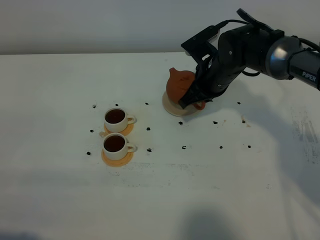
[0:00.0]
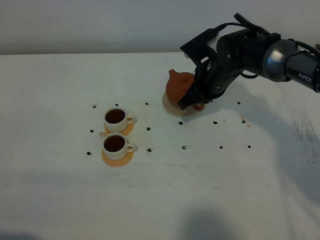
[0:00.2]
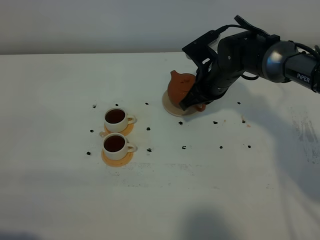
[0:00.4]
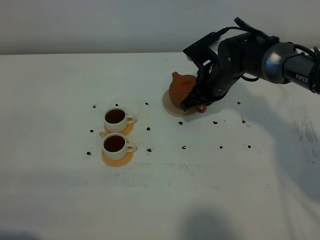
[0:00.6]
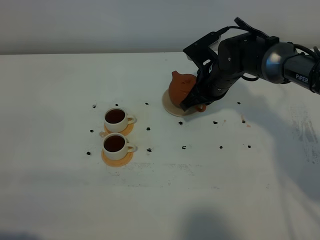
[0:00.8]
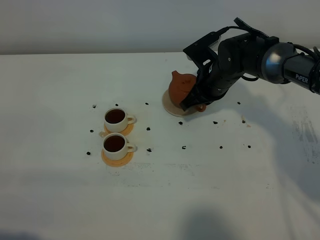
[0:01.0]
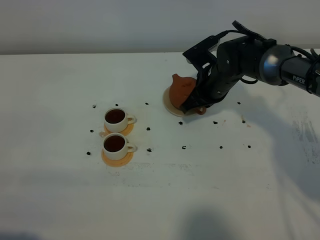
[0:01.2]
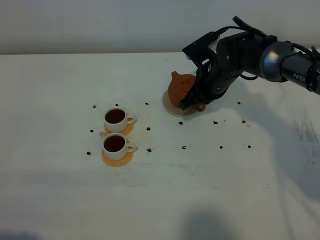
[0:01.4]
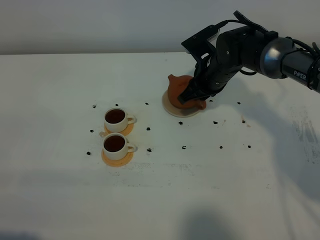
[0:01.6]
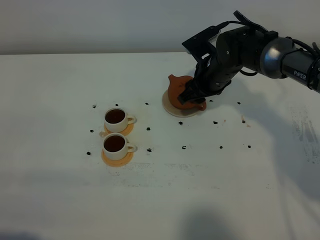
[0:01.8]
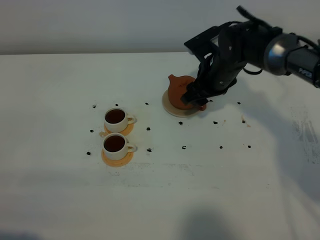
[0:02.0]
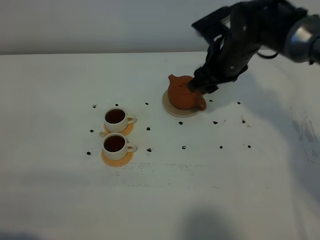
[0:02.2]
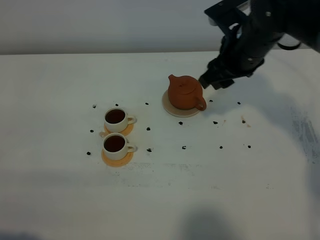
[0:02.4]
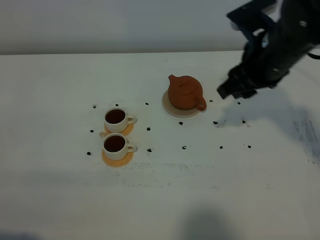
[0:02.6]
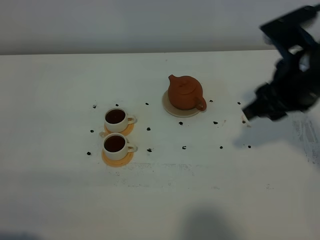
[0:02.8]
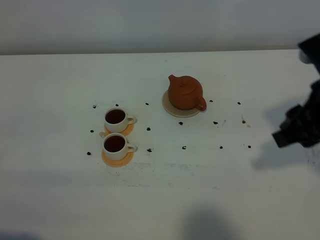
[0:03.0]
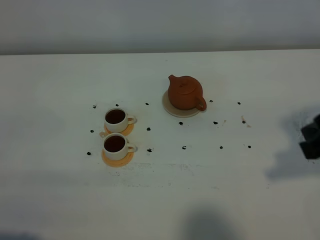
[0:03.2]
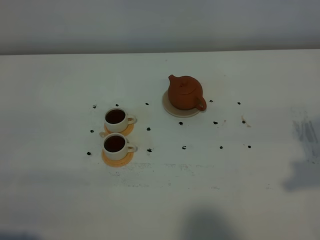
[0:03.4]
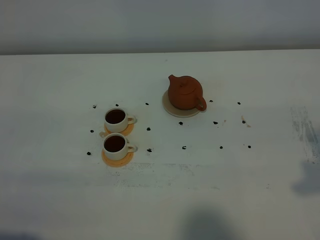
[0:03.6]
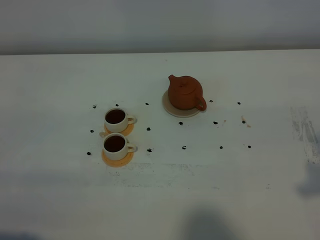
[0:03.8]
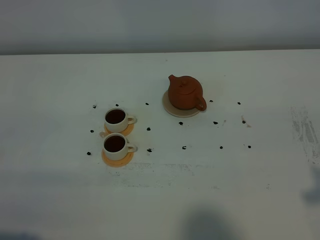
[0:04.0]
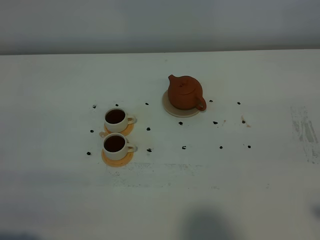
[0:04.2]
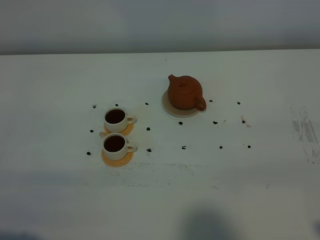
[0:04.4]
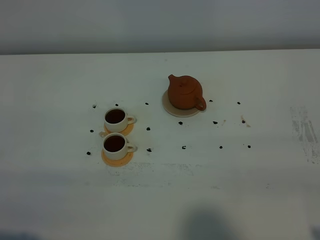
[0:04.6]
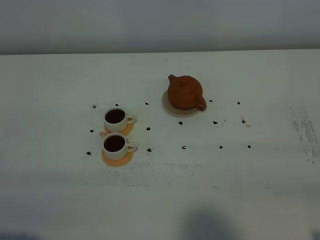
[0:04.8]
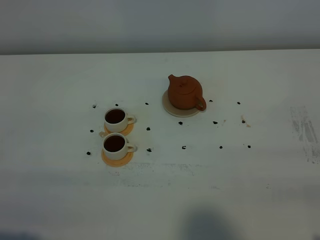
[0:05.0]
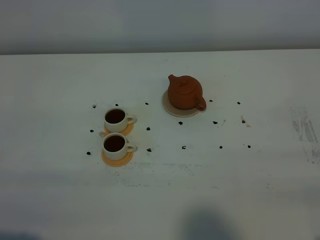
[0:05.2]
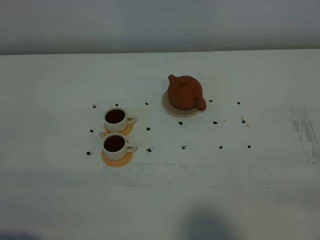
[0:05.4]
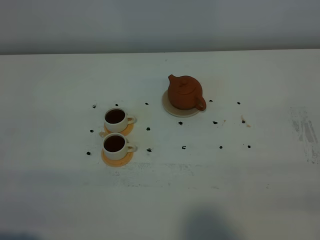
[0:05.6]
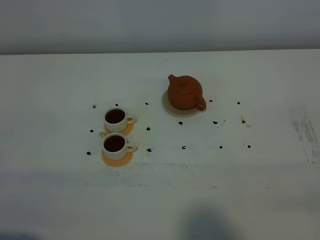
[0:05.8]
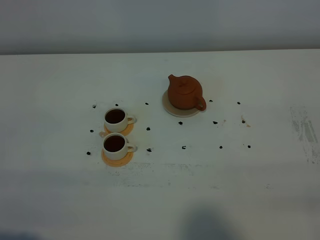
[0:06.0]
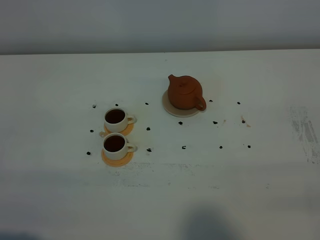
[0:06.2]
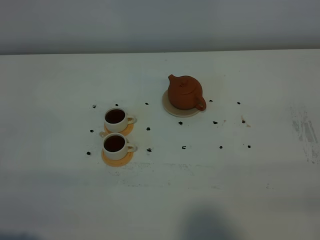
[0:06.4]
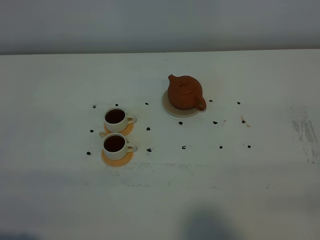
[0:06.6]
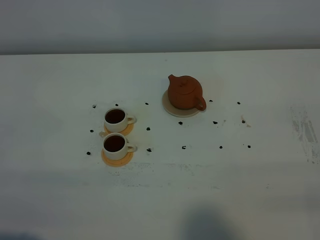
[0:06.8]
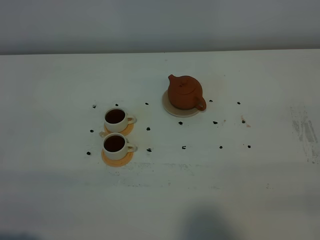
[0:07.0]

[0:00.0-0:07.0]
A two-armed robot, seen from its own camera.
Task of the whole recording: grasp the brown teapot and pour the tea into the two white teacups one by one, put the brown teapot back in its original place.
0:00.0 to 0:01.4: The grippers move only a little.
0:01.4 to 0:02.8: The right gripper moves backward, upward and to the right, approximately 25 cm, and opens its fingers.
0:02.8 to 0:04.2: The right gripper heads backward and to the right, covering approximately 20 cm.
0:05.6 to 0:07.0: Both grippers stay about where they are.
